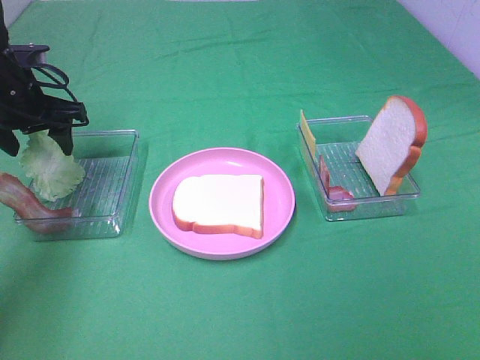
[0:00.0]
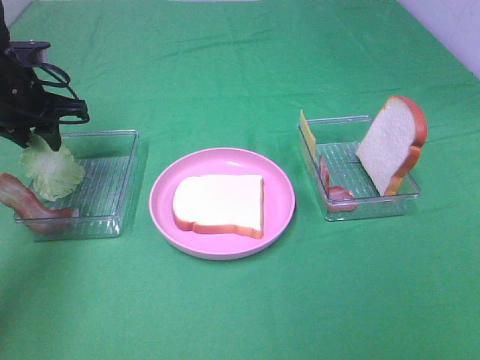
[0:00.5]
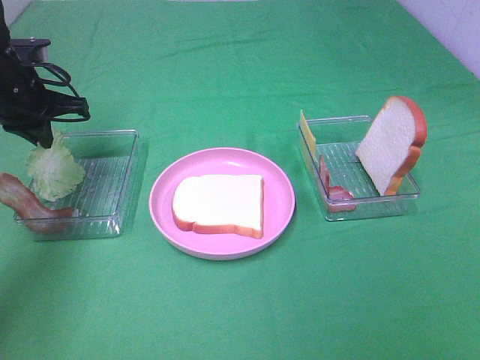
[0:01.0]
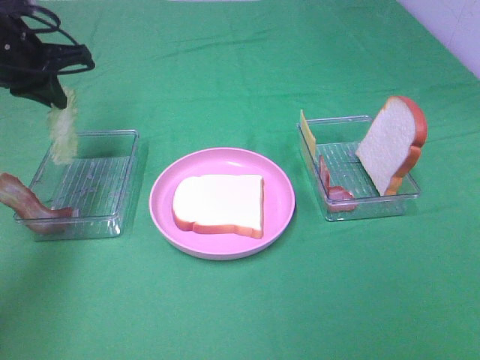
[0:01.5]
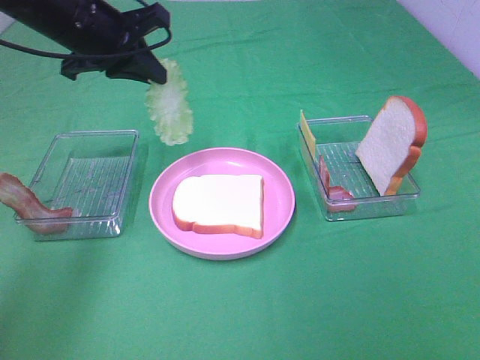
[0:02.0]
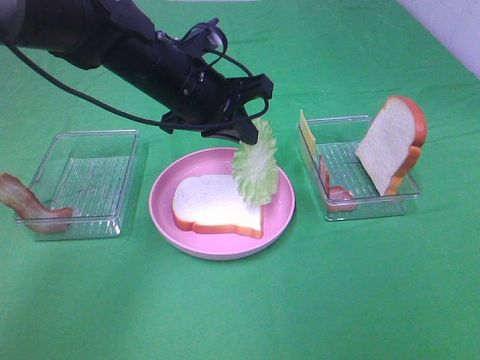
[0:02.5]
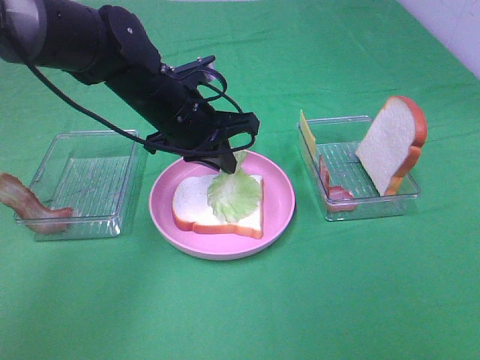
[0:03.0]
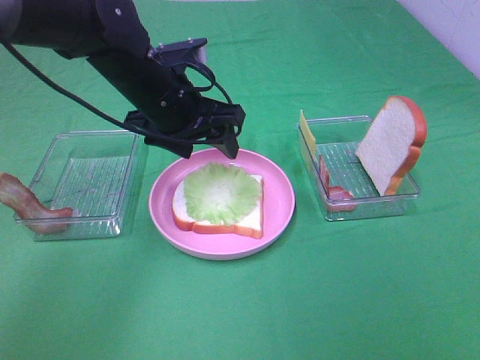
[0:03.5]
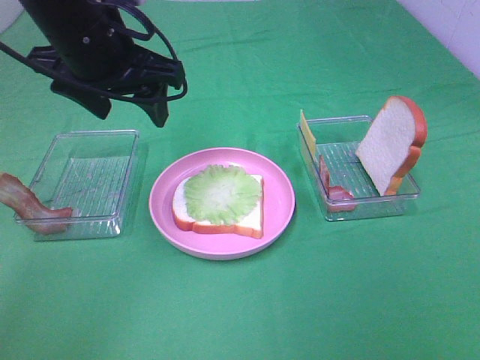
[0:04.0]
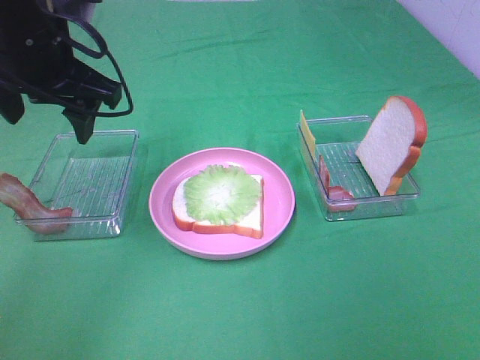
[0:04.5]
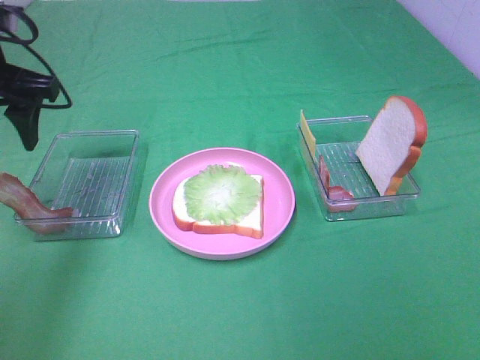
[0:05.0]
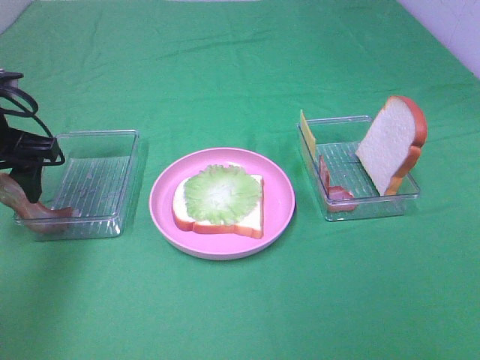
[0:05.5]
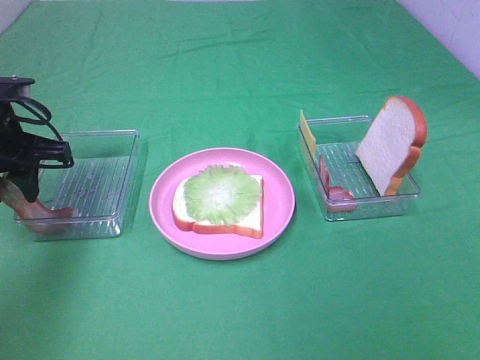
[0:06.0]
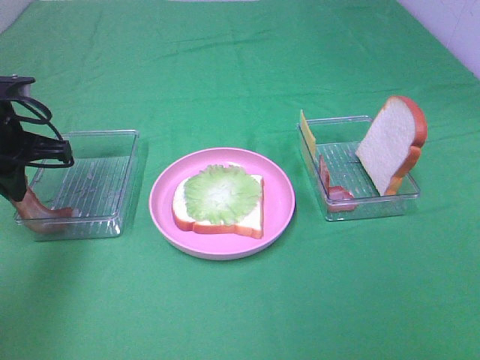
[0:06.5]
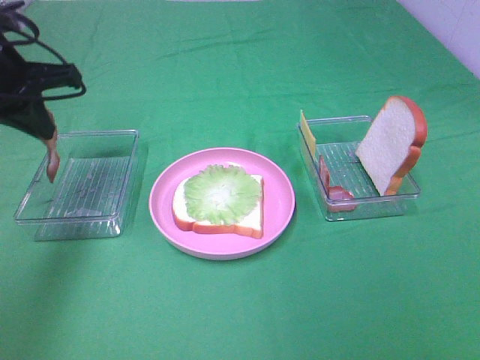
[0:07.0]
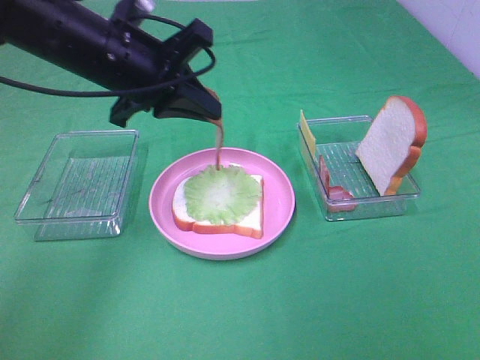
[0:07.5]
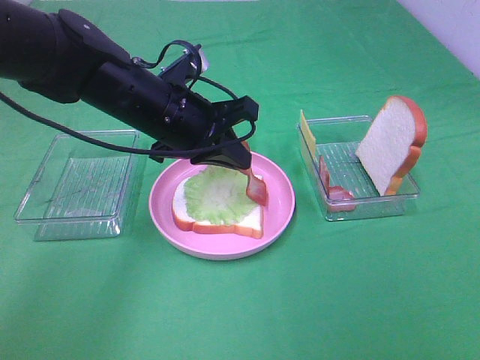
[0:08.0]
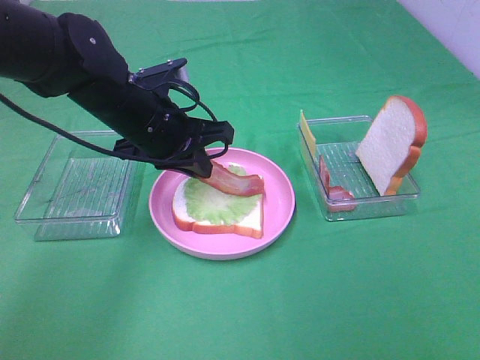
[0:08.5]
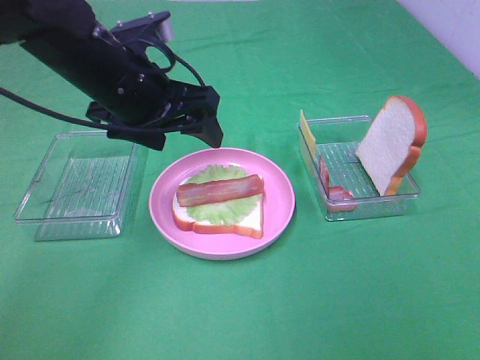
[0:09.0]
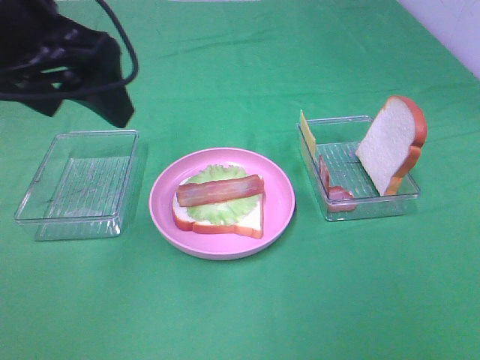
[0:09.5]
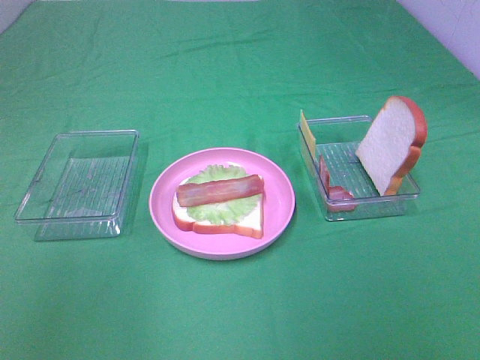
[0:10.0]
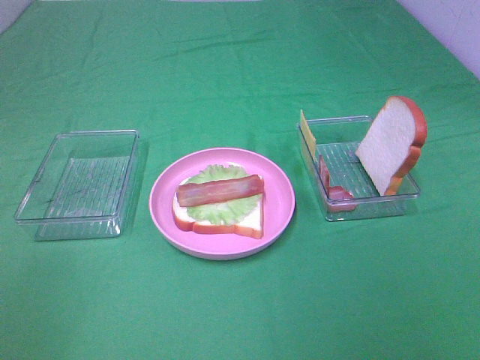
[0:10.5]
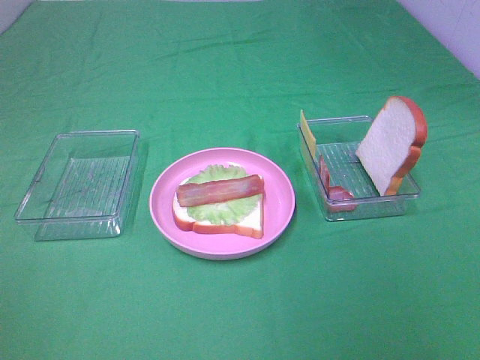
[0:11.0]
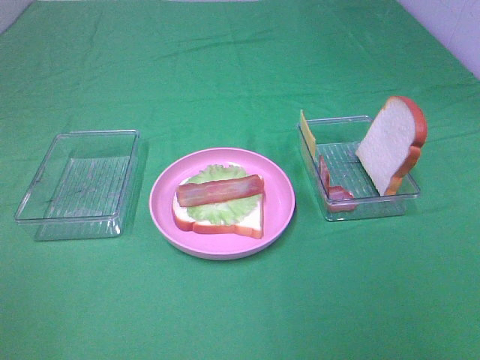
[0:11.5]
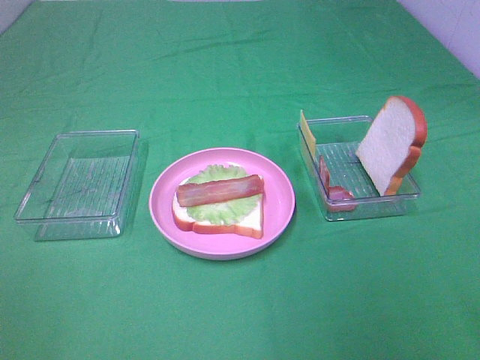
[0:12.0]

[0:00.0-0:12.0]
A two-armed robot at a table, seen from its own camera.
Task of the whole recording: Make sandwiches.
Step, 0:01.5 to 0:03.5: Left hand:place the lettuce slice on the bread slice.
Step, 0:04.0 to 0:06.5: Left hand:grab the bacon.
Step, 0:07.0 to 0:08.5: Left hand:place bacon on lettuce slice.
0:00.0 to 0:02.0: The left gripper heads to the right and upward, covering some 15 cm, and closes.
0:02.0 to 0:04.0: The left gripper heads backward, covering approximately 5 cm, travels downward and back again, some 10 cm each way, and opens.
0:04.0 to 0:06.0: The left gripper moves to the left and downward, approximately 15 cm, and closes.
0:06.0 to 0:08.0: The left gripper goes approximately 20 cm to the right, and closes up.
0:08.0 to 0:10.0: The left gripper heads upward, backward and to the left, covering some 35 cm, and opens up.

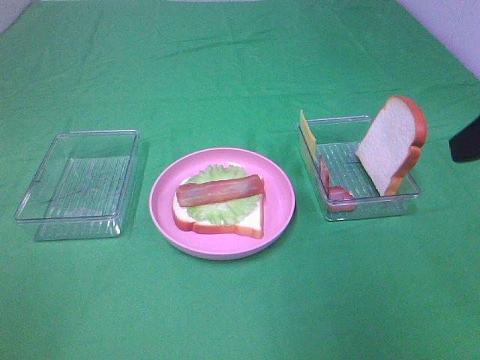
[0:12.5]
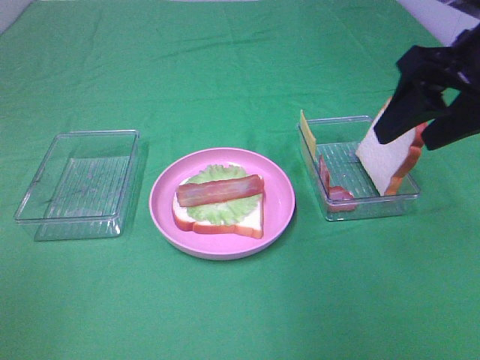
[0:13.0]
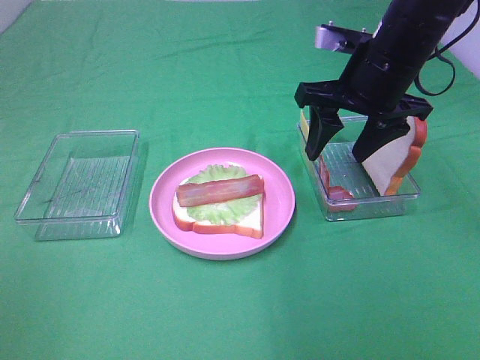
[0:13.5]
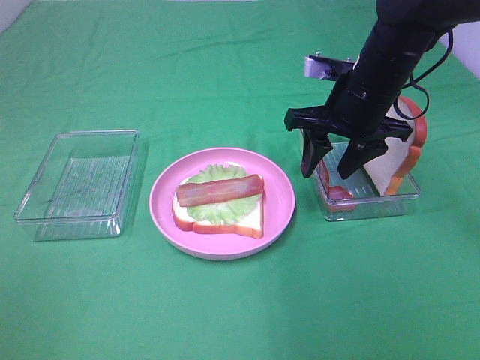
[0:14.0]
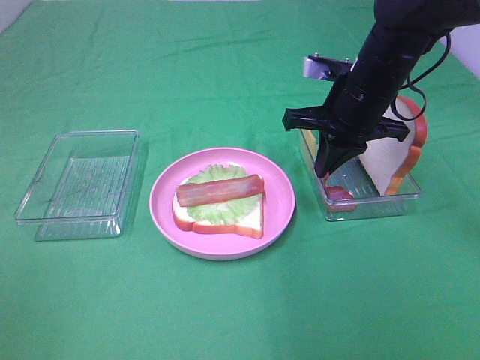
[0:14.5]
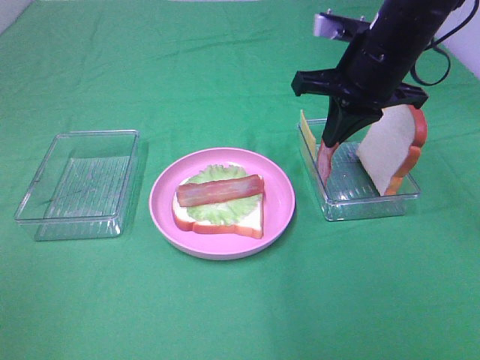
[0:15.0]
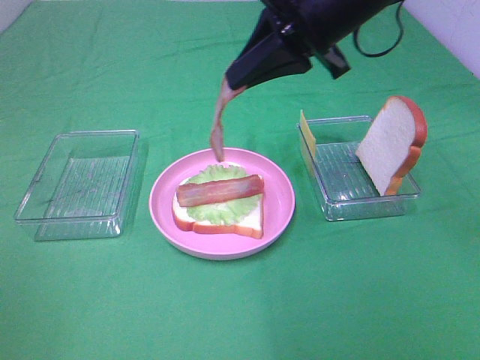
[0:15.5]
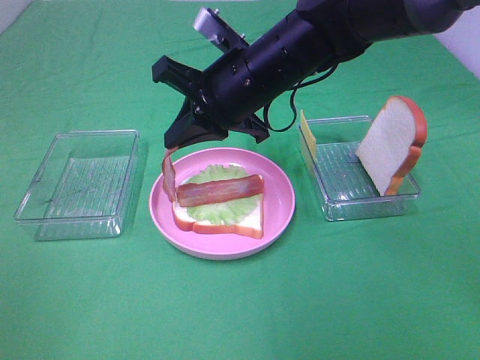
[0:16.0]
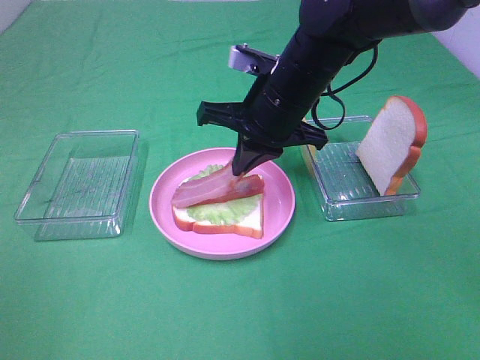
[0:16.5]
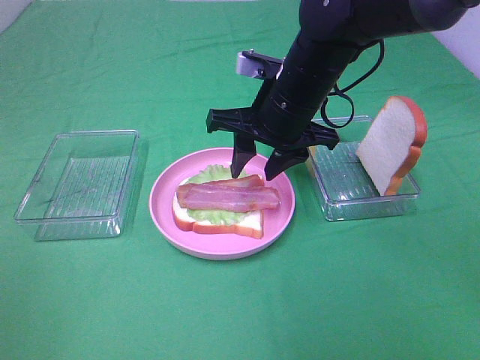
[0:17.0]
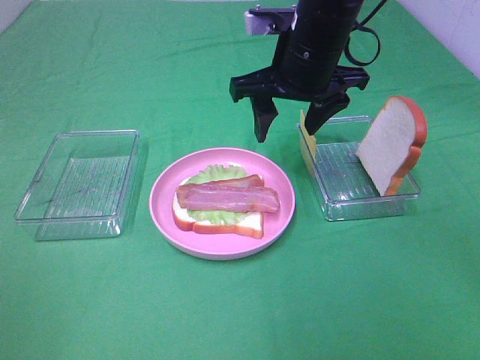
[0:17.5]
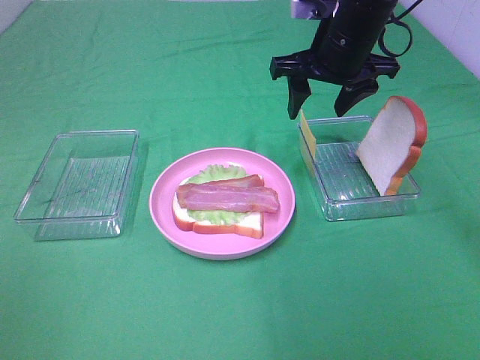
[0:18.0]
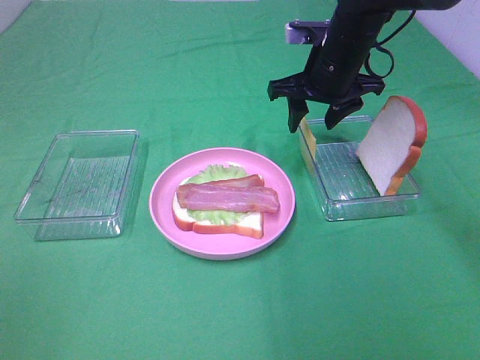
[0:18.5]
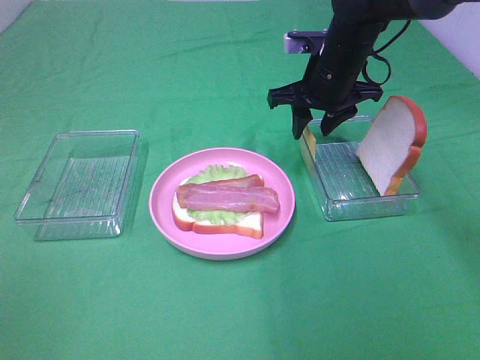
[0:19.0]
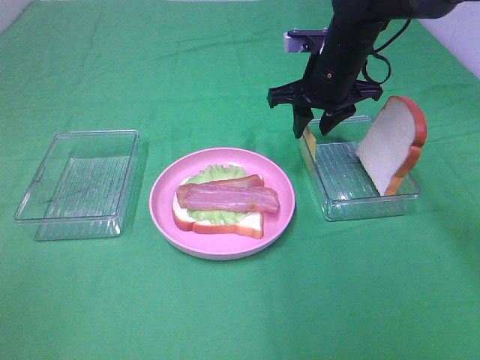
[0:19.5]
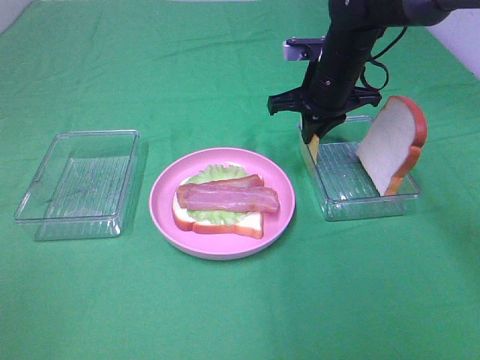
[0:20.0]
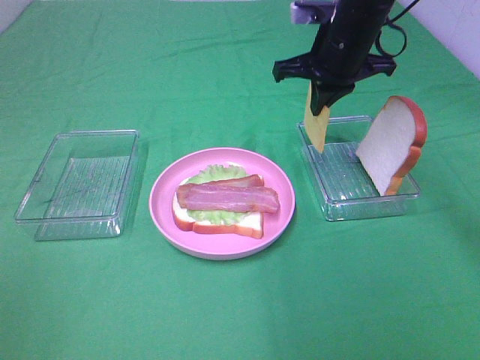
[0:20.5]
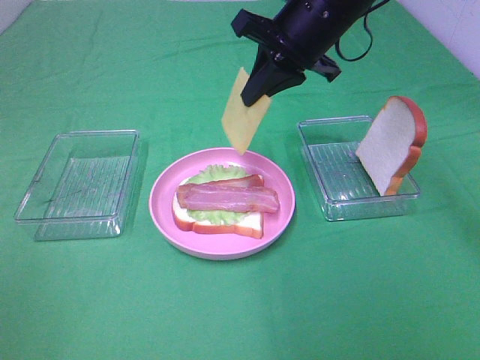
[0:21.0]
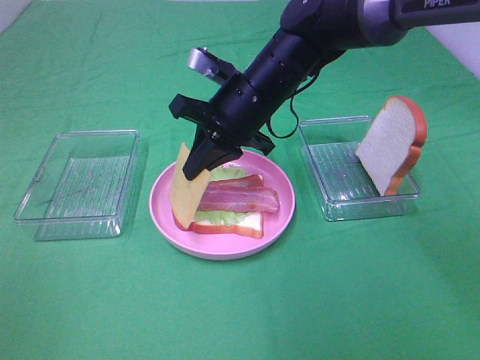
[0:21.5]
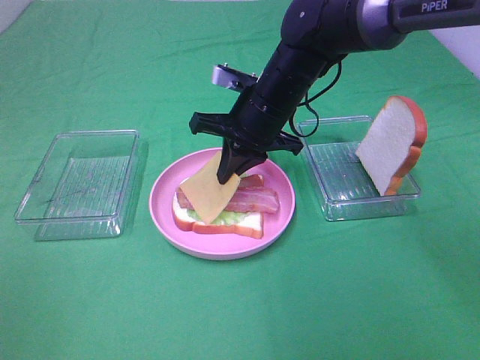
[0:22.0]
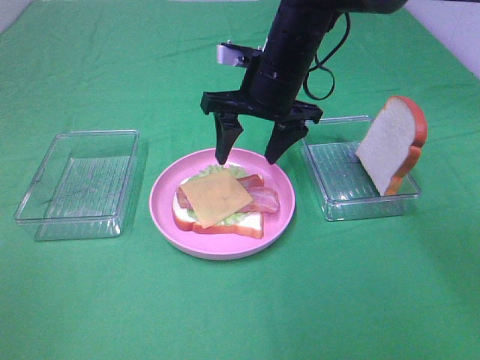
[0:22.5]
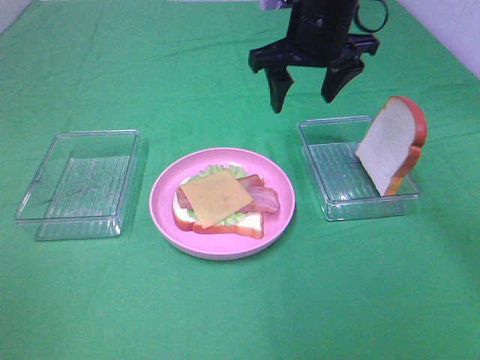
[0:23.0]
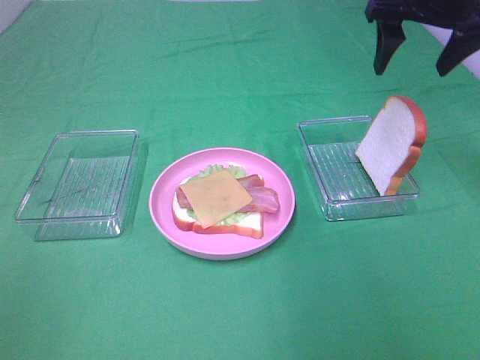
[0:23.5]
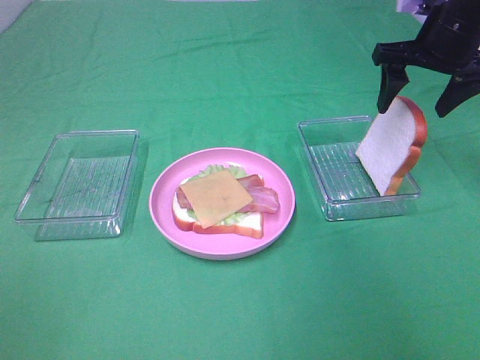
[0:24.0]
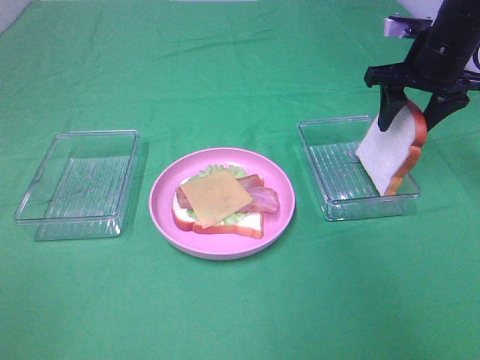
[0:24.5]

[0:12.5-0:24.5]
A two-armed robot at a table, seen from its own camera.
Task of the whole recording: Make sandwiches.
Step, 0:12.5 to 0:14.5: Right hand:grab the bacon.
Step, 0:15.0 to 0:17.5: Right hand:place bacon on bacon.
Step, 0:18.0 to 0:20.0: Right hand:grab the cheese slice.
Step, 0:20.5 to 0:22.5: Right hand:place the cheese slice on top of the bacon.
0:12.5 to 0:14.5: The right gripper travels forward, downward and to the left by about 25 cm, and closes up.
0:14.5 to 0:16.5: The right gripper heads to the left, covering about 10 cm.
0:16.5 to 0:18.5: The right gripper shifts about 10 cm forward and to the right, and opens up.
0:18.5 to 0:20.5: The right gripper closes up.
0:20.5 to 0:22.5: The right gripper travels to the left by about 10 cm, and opens its fingers.
0:22.5 to 0:24.5: The right gripper goes roughly 20 cm to the right.

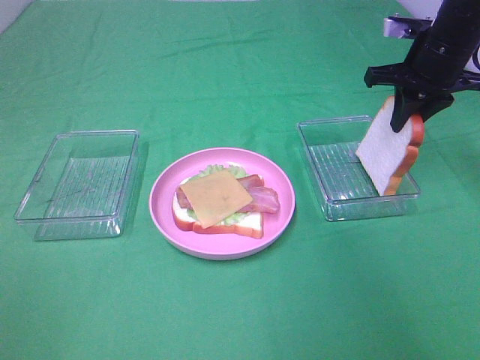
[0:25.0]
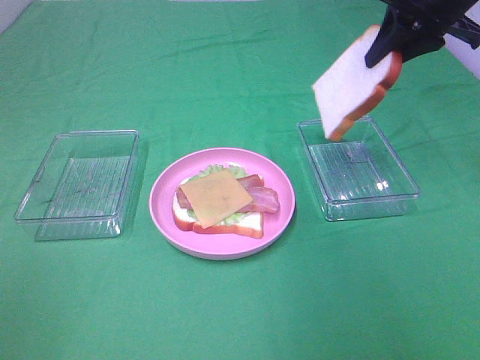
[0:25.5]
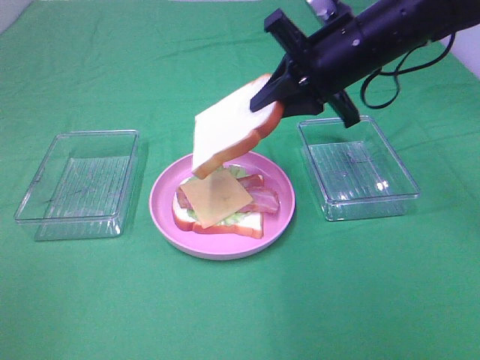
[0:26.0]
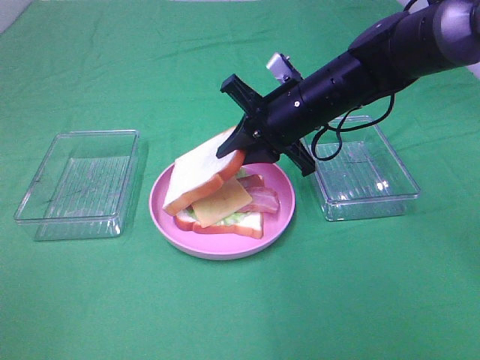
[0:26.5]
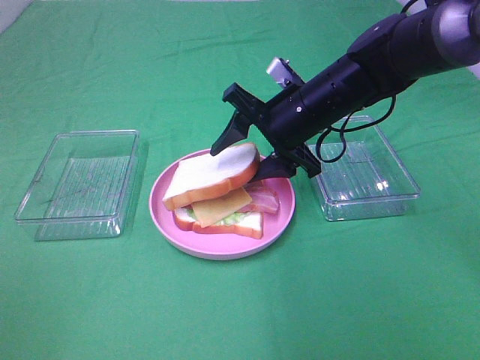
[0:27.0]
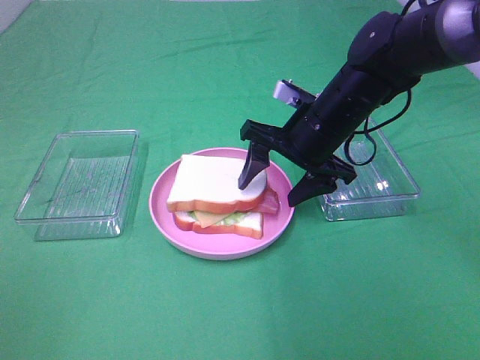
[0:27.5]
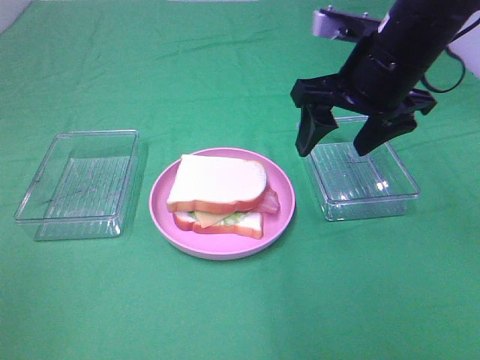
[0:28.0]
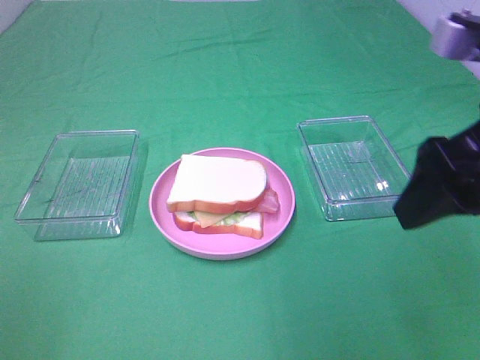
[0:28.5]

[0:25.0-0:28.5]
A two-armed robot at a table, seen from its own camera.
Task of the whole recording: Make sandwiches.
Step, 0:25.5 to 0:27.5: Right hand:place the bread slice on the cheese slice.
0:25.0 to 0:27.0: The right gripper heads to the left and downward, covering about 15 cm, and opens.
0:27.0 to 0:28.5: The right gripper heads backward, upward and to the right, covering approximately 25 cm.
